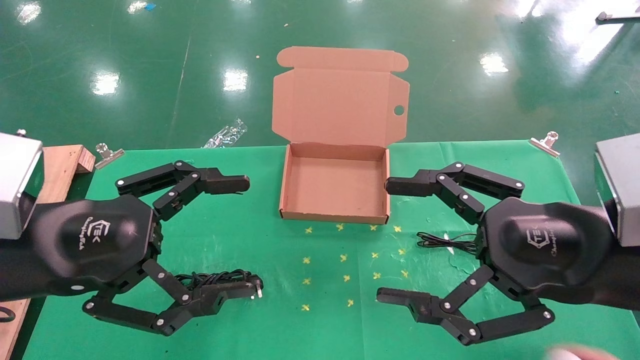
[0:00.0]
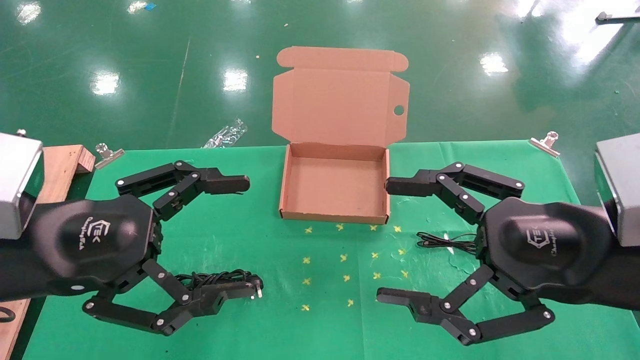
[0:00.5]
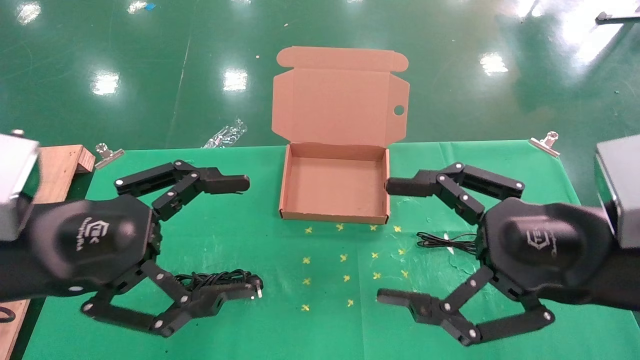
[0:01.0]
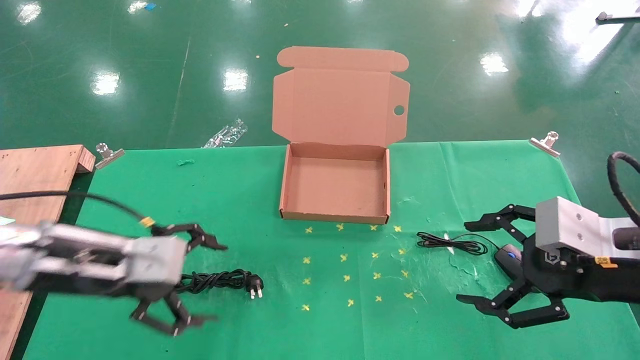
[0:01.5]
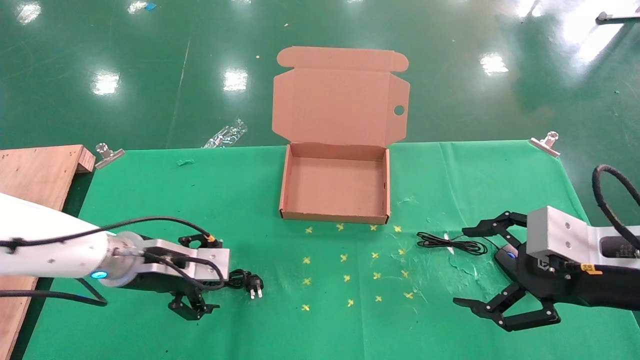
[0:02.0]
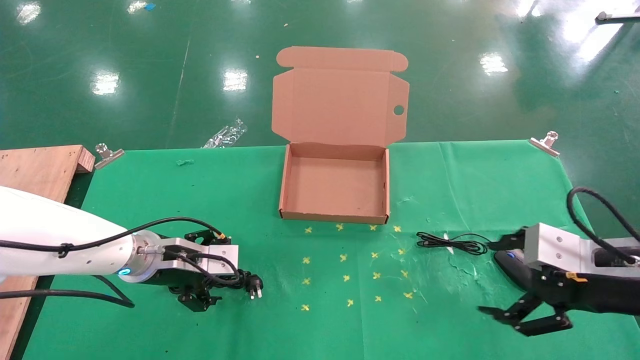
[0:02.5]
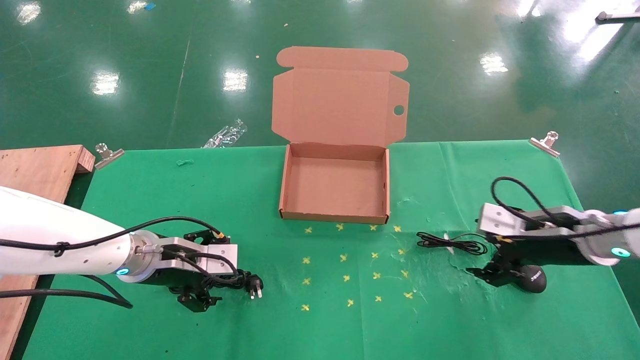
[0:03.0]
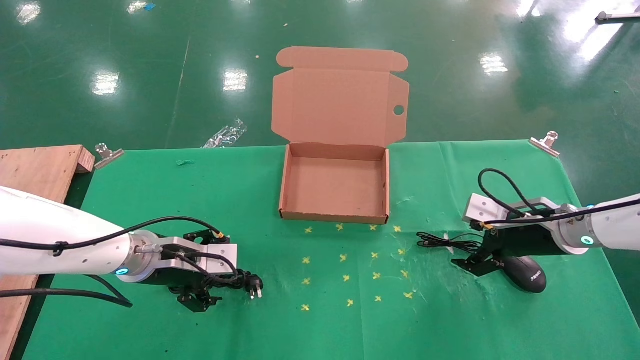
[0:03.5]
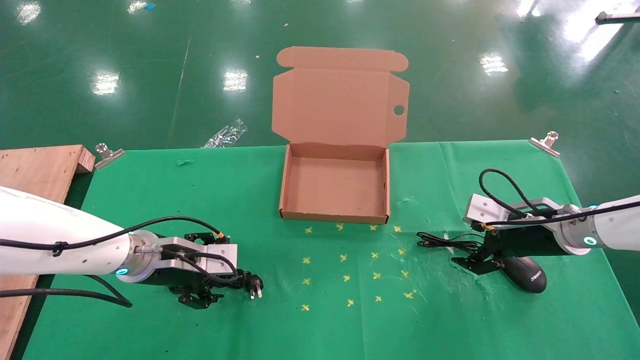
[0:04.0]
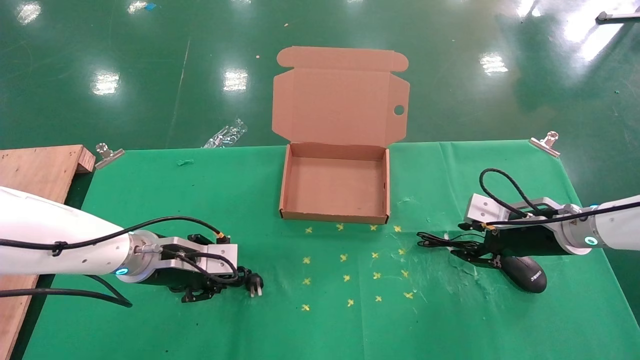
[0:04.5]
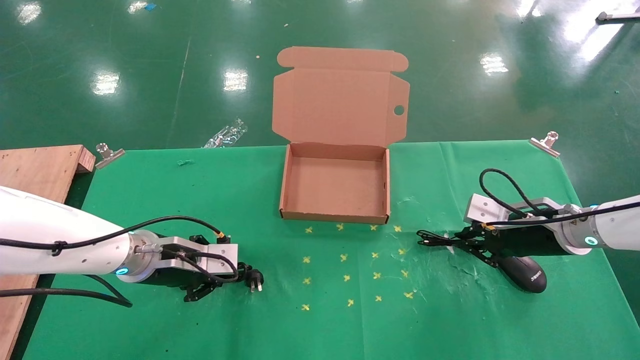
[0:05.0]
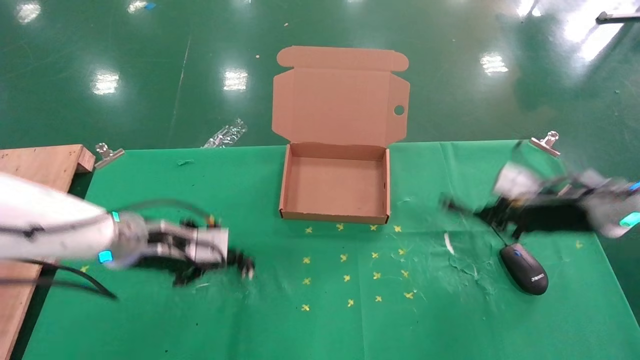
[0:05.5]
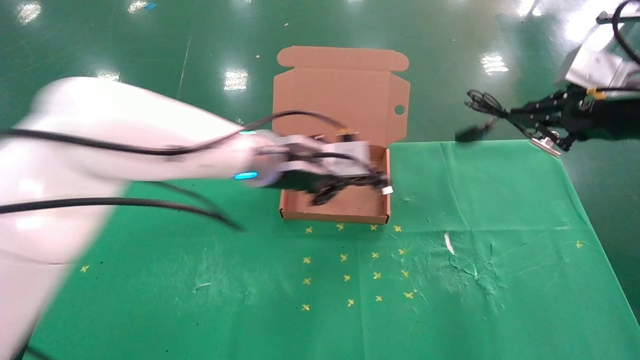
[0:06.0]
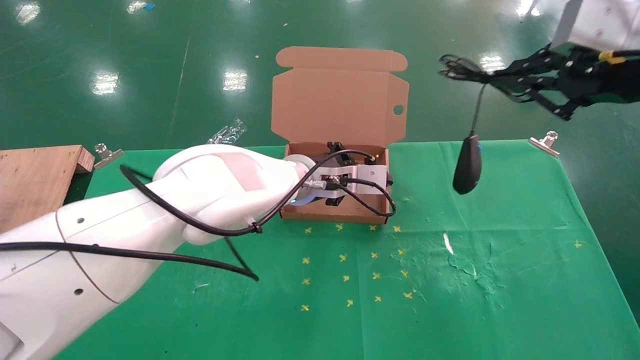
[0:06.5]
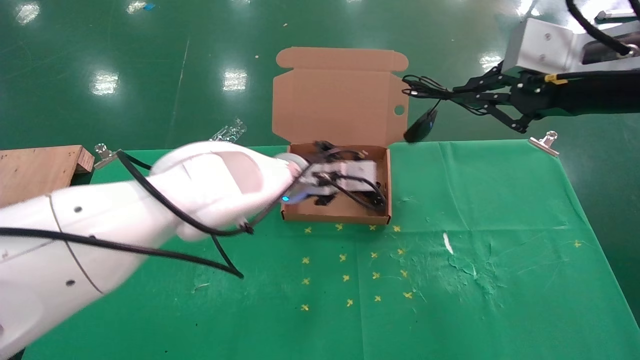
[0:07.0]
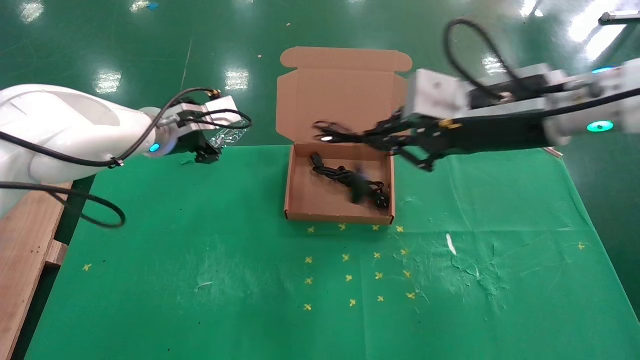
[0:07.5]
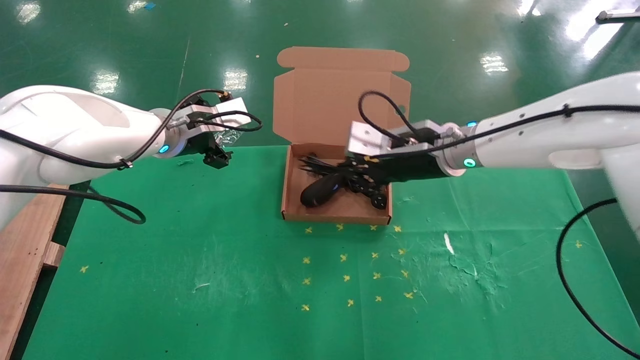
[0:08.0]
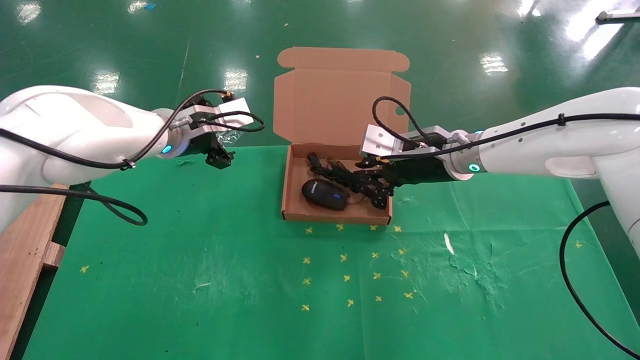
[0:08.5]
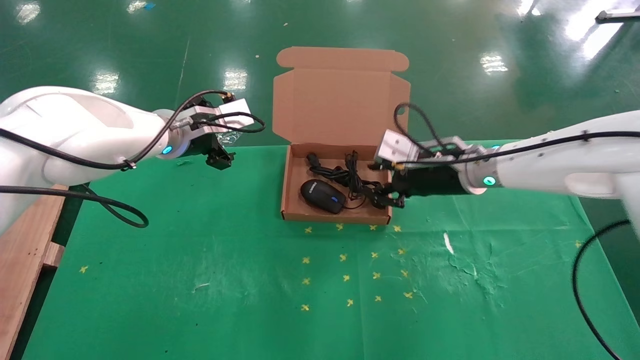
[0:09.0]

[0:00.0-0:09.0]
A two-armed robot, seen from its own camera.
Task of the whole recording: grasp data cable left put into box grasp mouse right put into box.
Step, 0:01.5 to 0:05.0: Simultaneously pick up the mouse and power cord from the accessory packaging area.
Step, 0:05.5 to 0:08.0: Place the mouse and power cord into the box.
0:00.0 to 0:02.0: The right gripper heads to the right, covering approximately 5 cm. The left gripper heads forward and downward, covering approximately 20 cm.
0:02.0 to 0:04.5: The left gripper closes. Meanwhile the right gripper goes some 15 cm forward, and closes.
0:04.5 to 0:07.0: The right gripper travels upward and backward by some 25 cm, and closes its fingers; the left gripper shifts roughly 25 cm to the right, upward and forward.
0:07.0 to 0:09.0: The right gripper moves downward, forward and to the left, some 20 cm, while the left gripper goes approximately 15 cm to the left, and opens up.

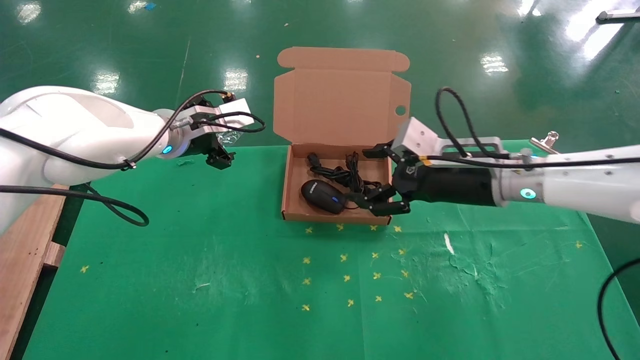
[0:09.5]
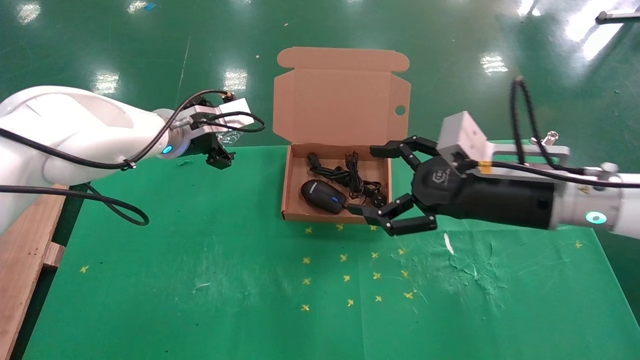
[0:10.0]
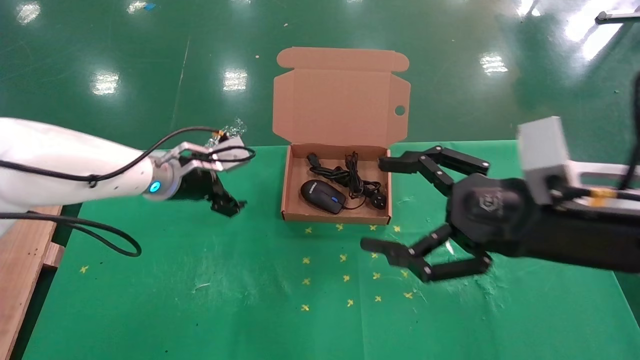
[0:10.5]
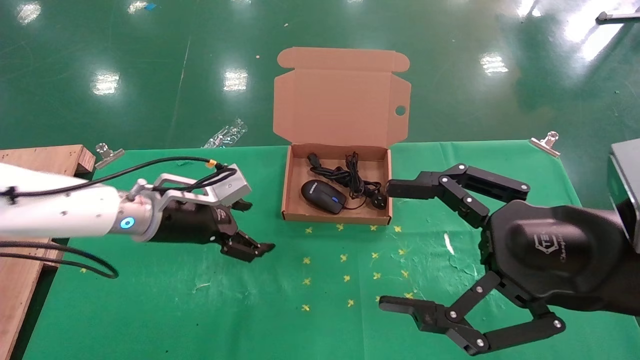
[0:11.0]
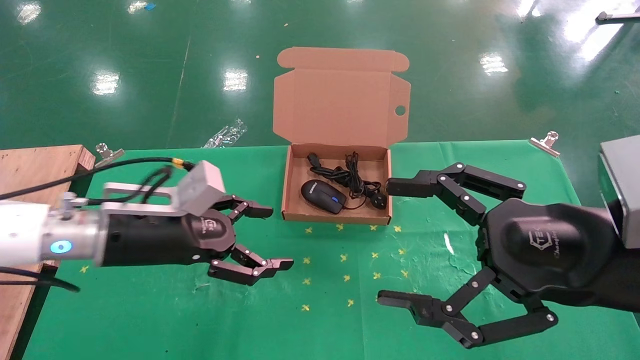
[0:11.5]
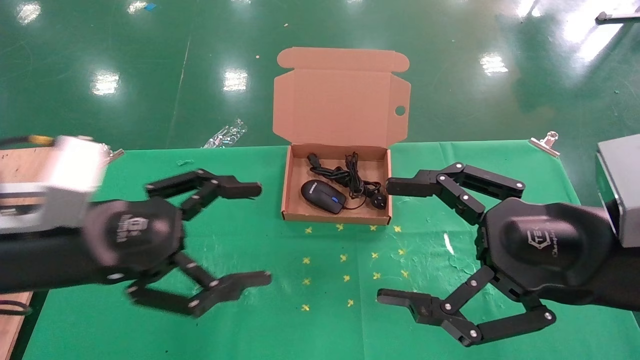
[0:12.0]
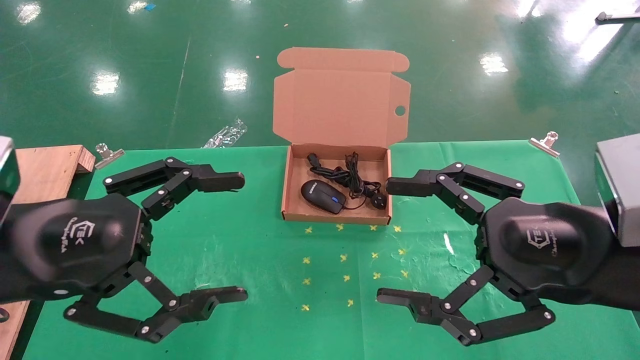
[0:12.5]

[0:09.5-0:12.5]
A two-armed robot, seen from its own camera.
Task of the whole recording: grasp data cable left put into box grasp mouse right put into box.
0:09.5 to 0:11.0: The right gripper heads backward, covering some 20 cm; the left gripper goes approximately 10 cm downward and backward.
0:11.0 to 0:12.5: The left gripper is displaced backward and upward by approximately 20 cm.
